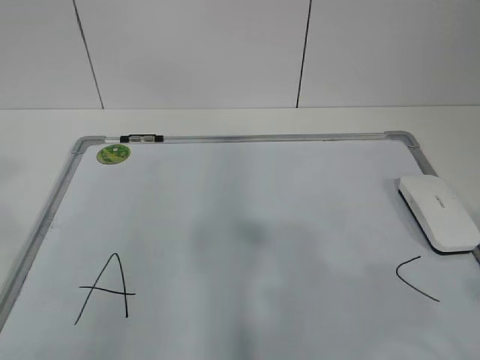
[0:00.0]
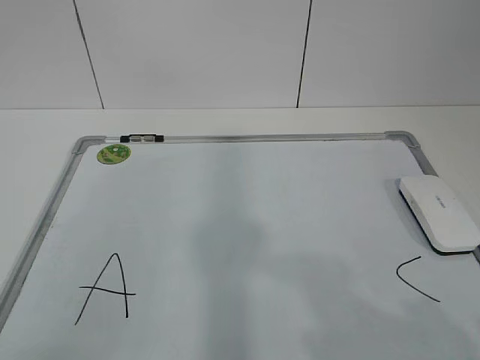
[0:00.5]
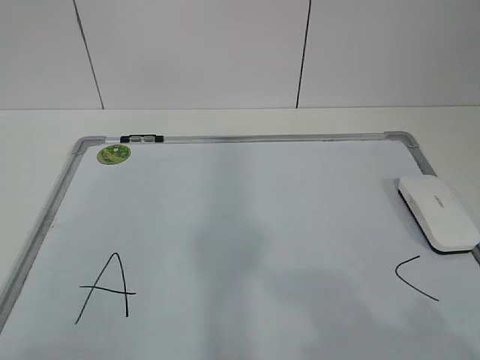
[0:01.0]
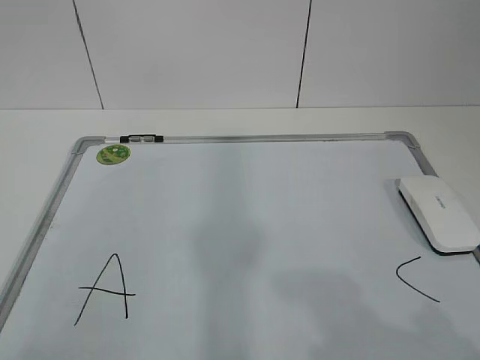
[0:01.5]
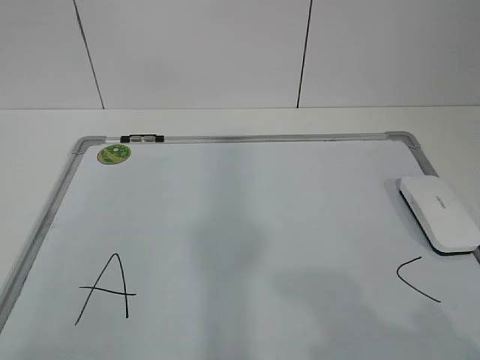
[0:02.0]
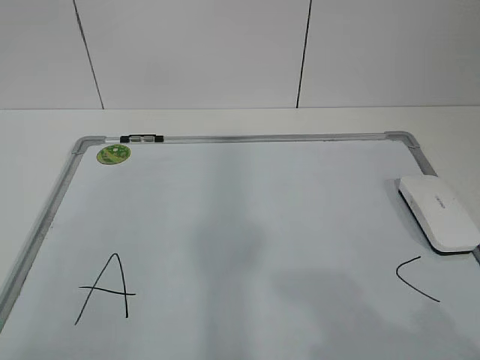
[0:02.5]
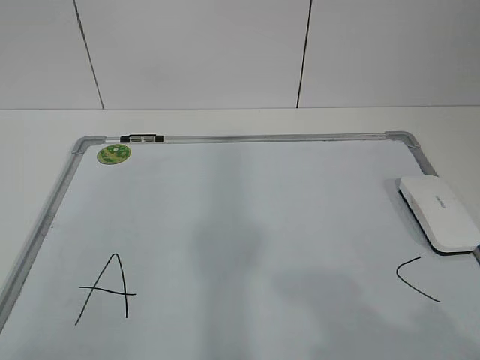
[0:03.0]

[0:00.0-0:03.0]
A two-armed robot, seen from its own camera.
Task of the whole recording: pick up the eraser on the blackboard and erase the letter "B".
0:01.5 to 0:03.0: Both grippers stay about where they are.

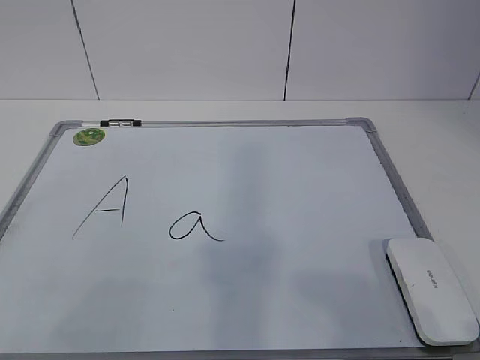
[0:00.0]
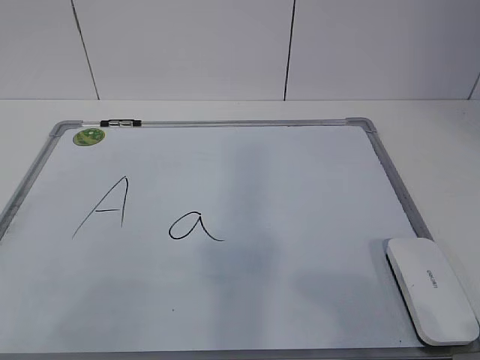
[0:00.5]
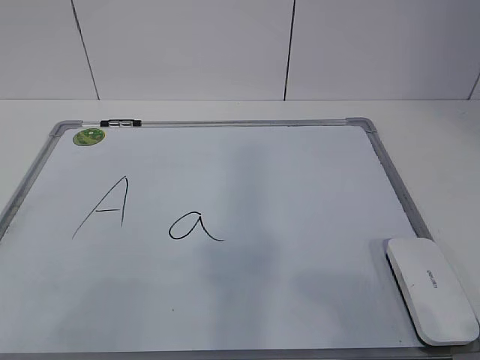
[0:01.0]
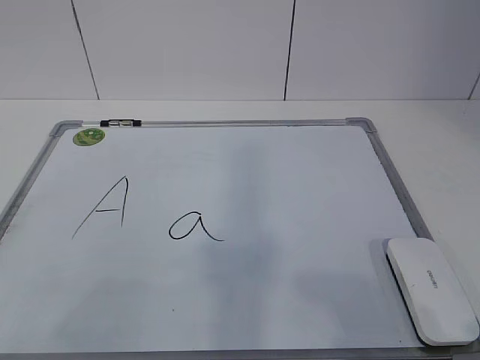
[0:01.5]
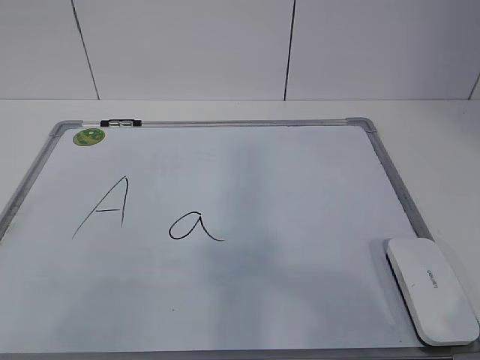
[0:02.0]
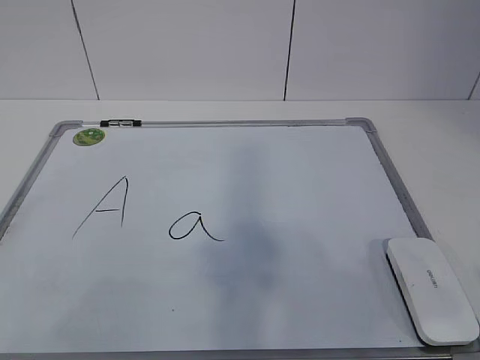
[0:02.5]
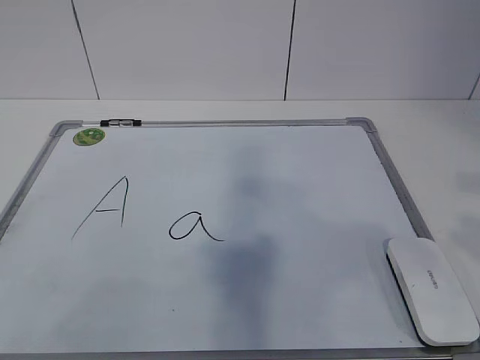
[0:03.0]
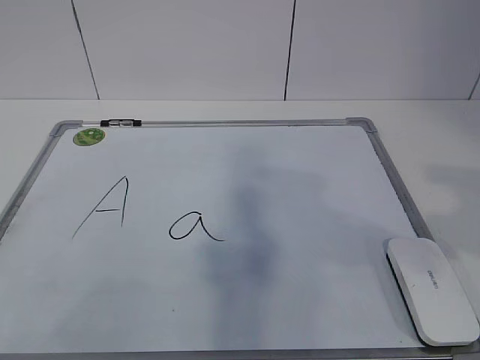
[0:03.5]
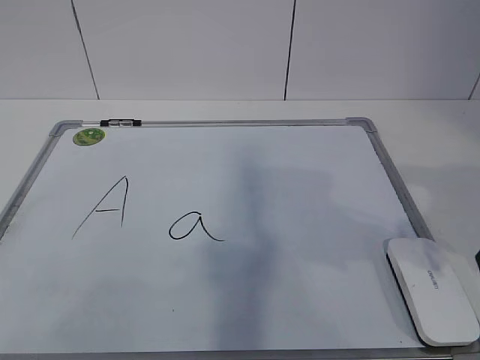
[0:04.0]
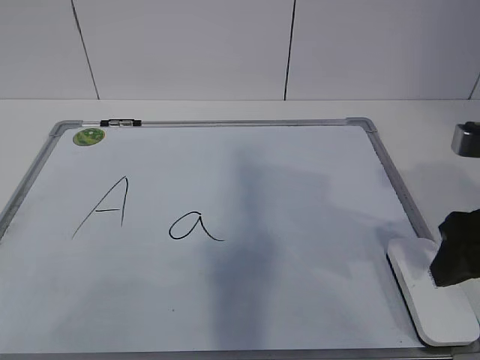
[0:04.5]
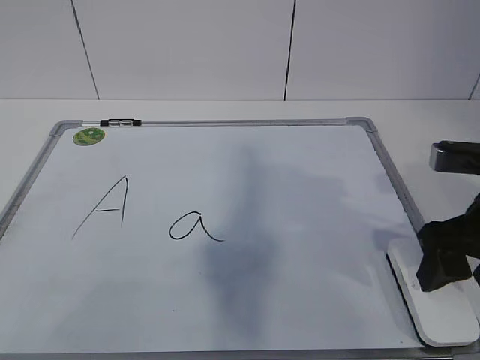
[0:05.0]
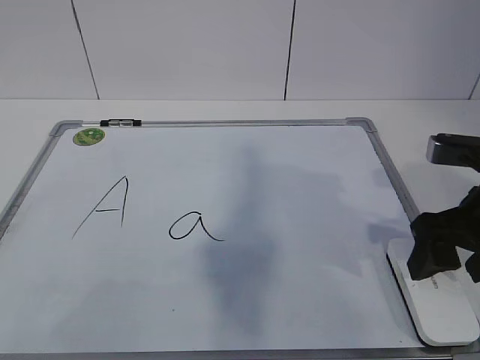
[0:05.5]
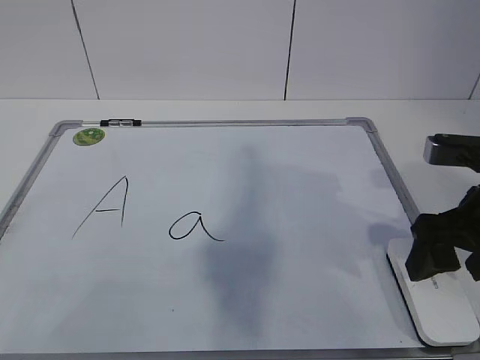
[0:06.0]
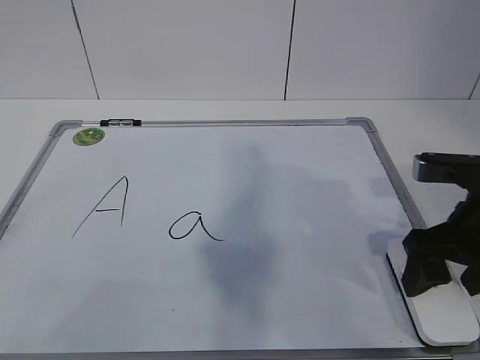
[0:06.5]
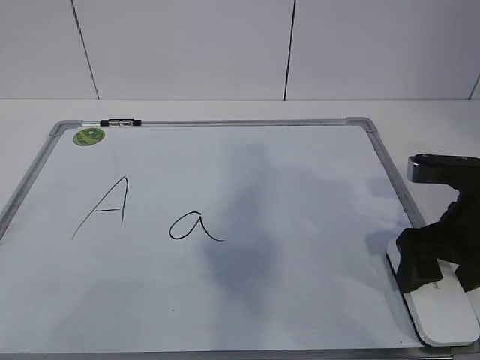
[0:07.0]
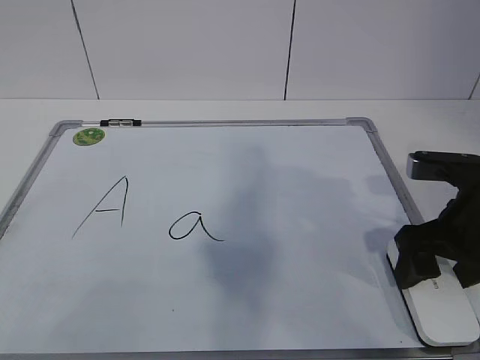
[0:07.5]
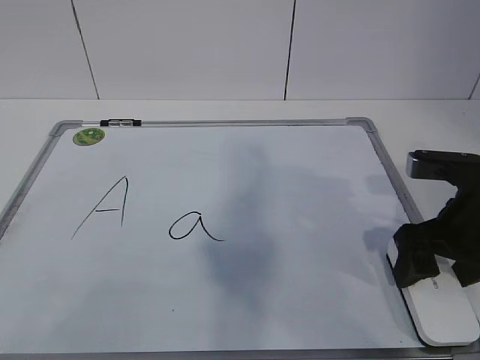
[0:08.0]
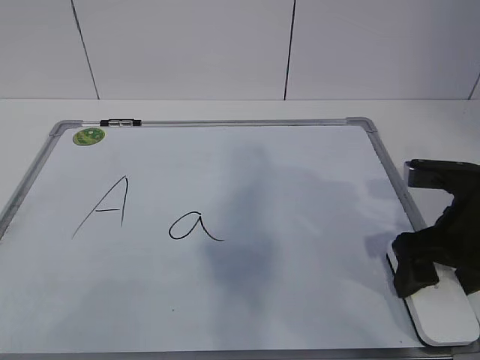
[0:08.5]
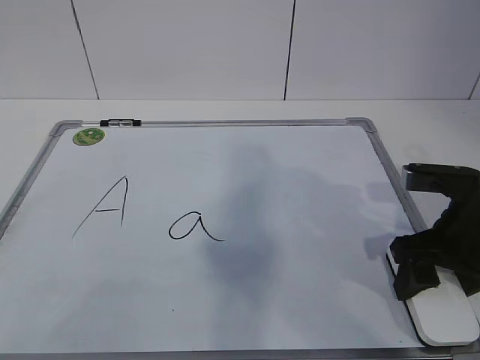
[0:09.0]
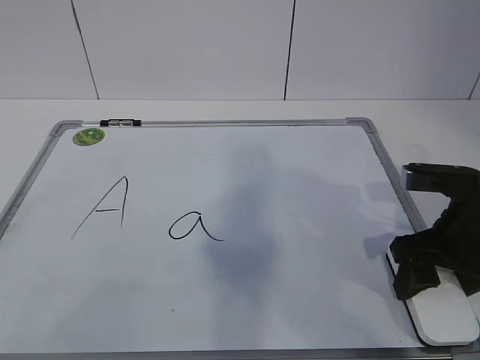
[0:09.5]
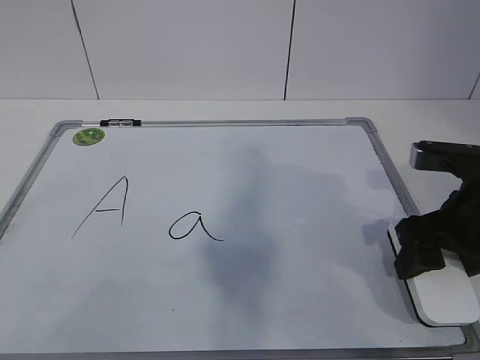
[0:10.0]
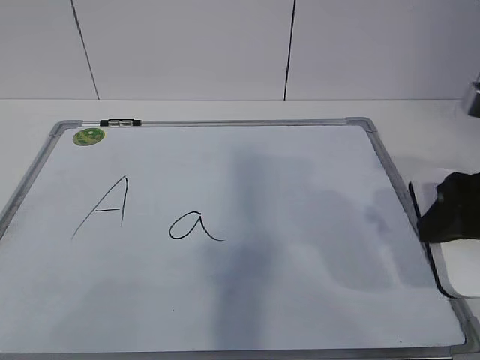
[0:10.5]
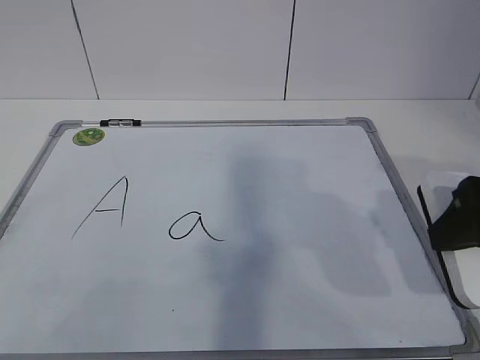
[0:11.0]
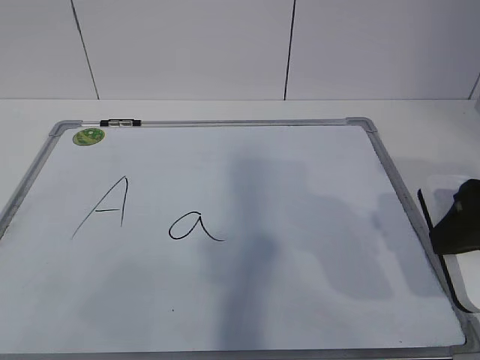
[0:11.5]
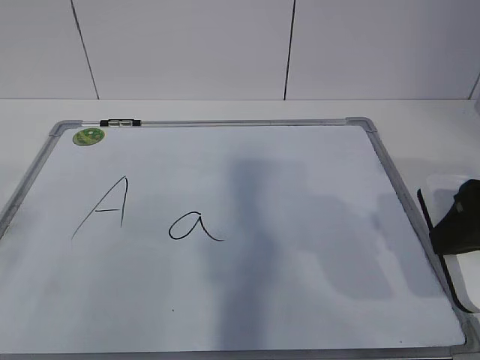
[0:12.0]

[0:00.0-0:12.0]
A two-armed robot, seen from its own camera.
Task of the whole recording: pick up the eraser on the blackboard and erase the letter "a".
Step, 0:00.0 to 0:07.0: Grab the eraser with your right hand.
0:02.0 to 0:04.0: The right gripper is displaced forward by about 20 cm.
0:04.0 to 0:06.0: The right gripper is displaced downward and forward by some 10 cm, and opens up.
0:06.0 to 0:08.0: The grippers stay close to where they were, moving slightly.
0:08.0 to 0:10.0: The right gripper closes.
0:10.0 to 0:12.0: The left gripper is displaced forward by some 10 cm, while the right gripper goes roughly 10 cm upward and backward.

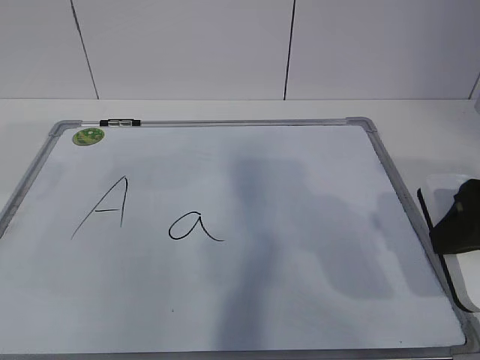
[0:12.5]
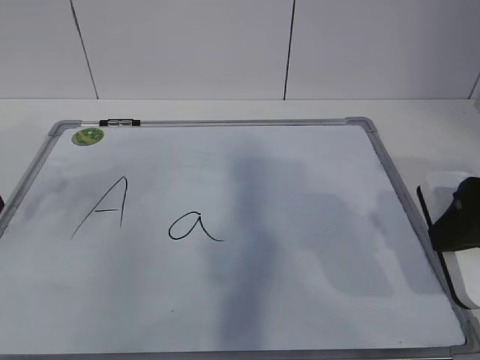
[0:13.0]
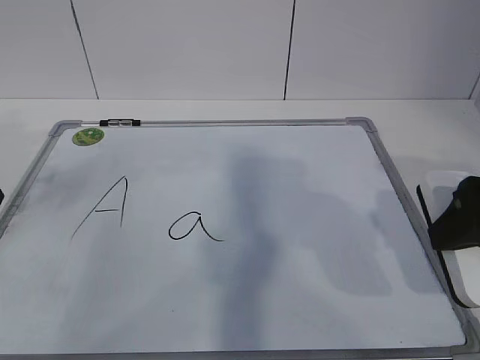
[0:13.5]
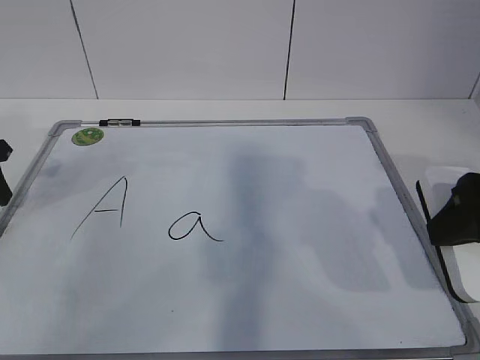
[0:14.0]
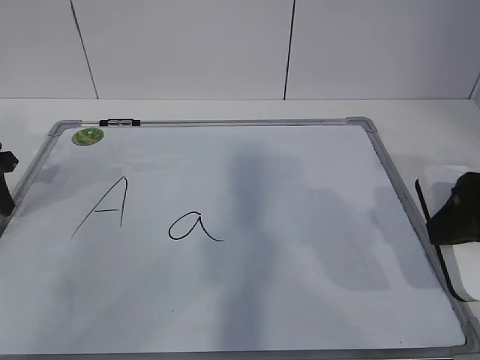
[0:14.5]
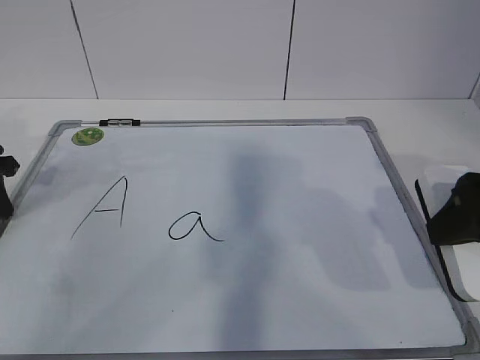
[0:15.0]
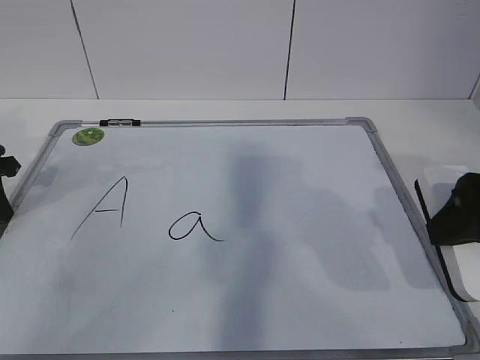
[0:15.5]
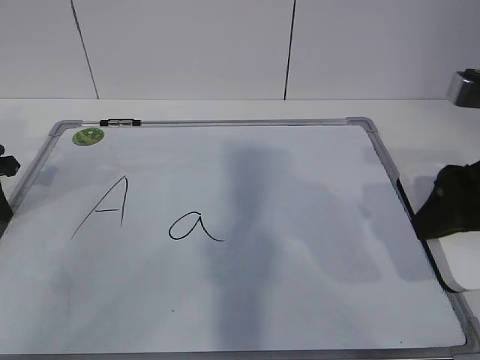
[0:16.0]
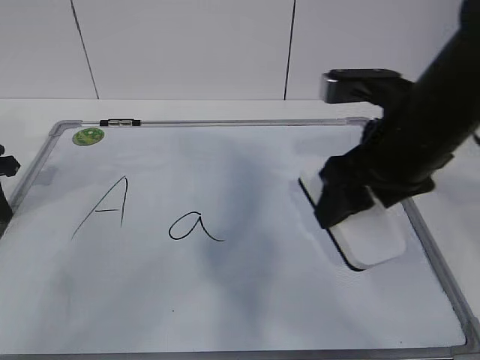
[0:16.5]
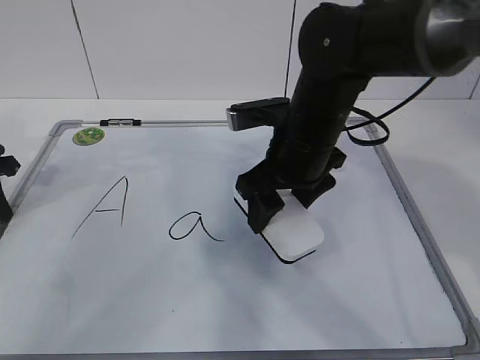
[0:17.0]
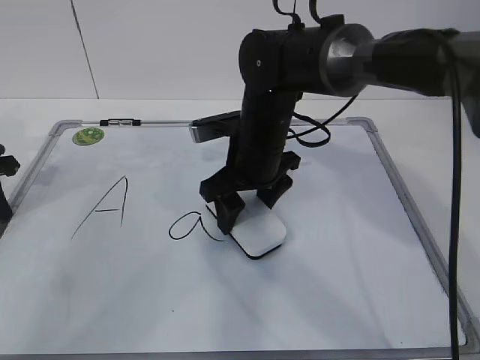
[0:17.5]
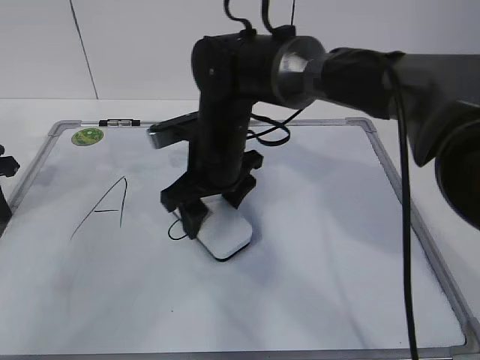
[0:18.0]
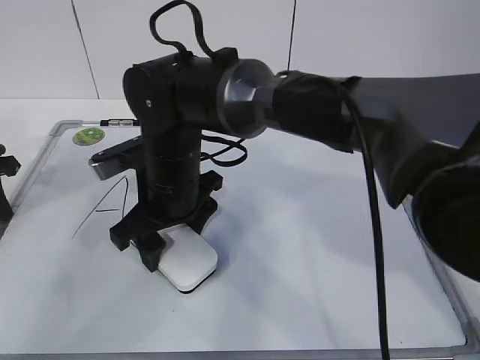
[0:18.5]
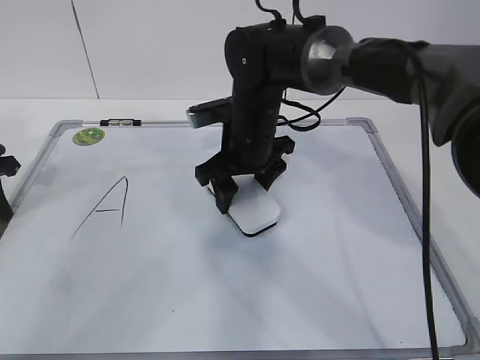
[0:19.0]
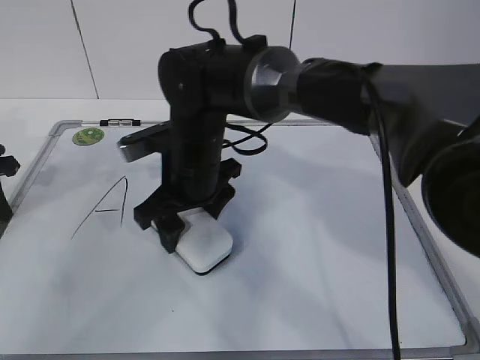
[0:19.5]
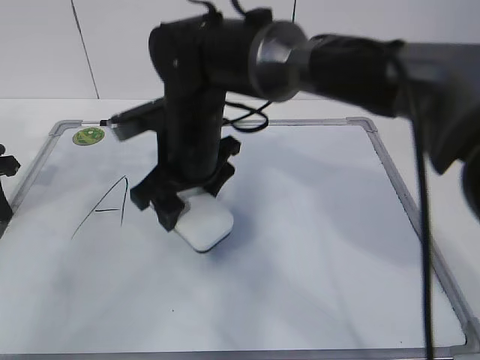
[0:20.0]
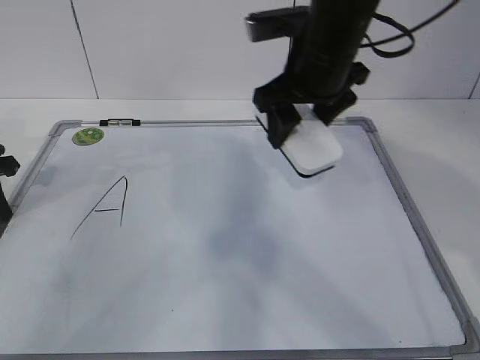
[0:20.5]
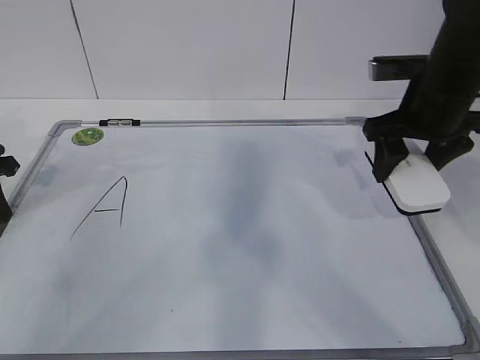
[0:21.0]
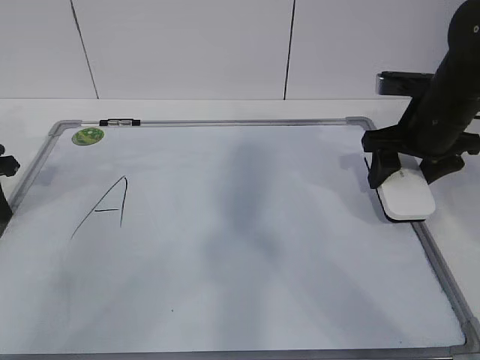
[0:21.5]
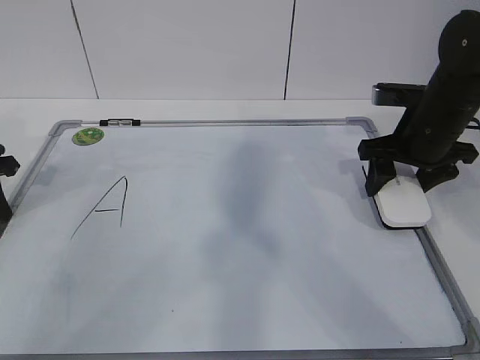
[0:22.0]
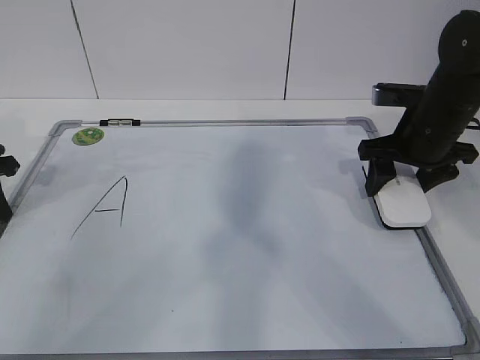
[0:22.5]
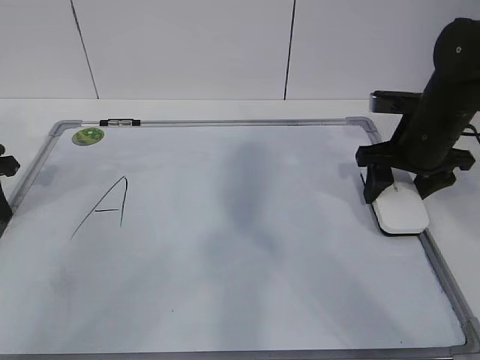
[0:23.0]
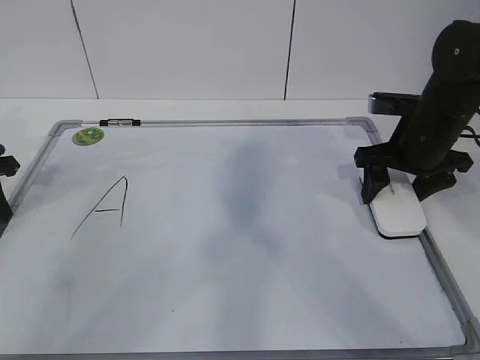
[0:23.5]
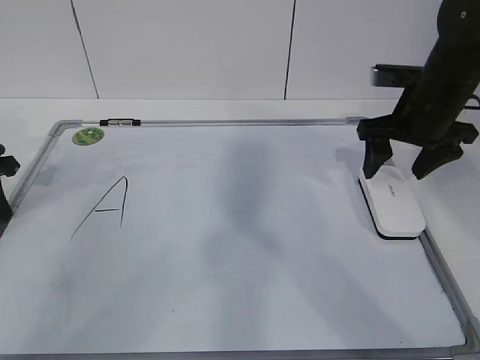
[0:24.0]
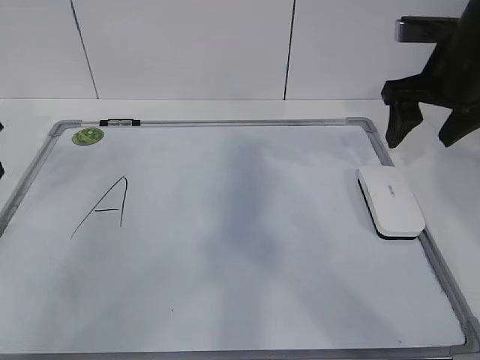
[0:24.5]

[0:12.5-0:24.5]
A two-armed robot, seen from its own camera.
Task of the whole recording: pick up the eraser on the blackboard and erase the letter "a".
Step, 0:16.5 to 0:19.5: Put down the eraser with your right hand.
0:12.5 to 0:14.5: The left gripper is displaced downward and forward by approximately 20 cm, and closes.
0:14.5 to 0:16.5: The right gripper moves to the left and forward, some 10 cm; the left gripper closes.
0:16.5 to 0:18.5: The right gripper goes approximately 25 cm to the left and downward.
0:18.5 to 0:20.5: The right gripper swings left and right, roughly 15 cm each way, with 2 reversals.
0:20.5 to 0:22.5: The right gripper moves to the right and downward, some 15 cm.
0:22.5 to 0:24.5: The left gripper travels upward by some 5 cm, and opens its fingers; the right gripper goes about 10 cm upward, and opens up.
